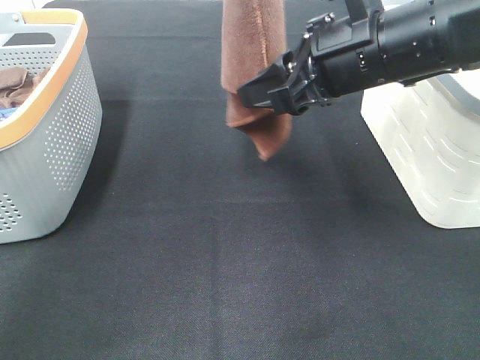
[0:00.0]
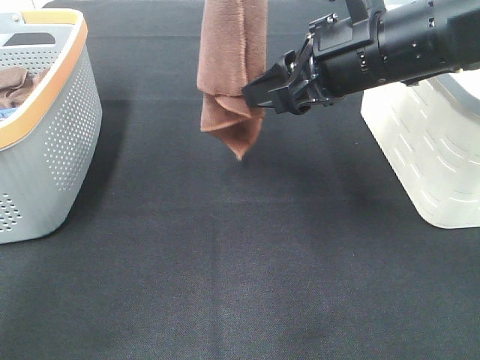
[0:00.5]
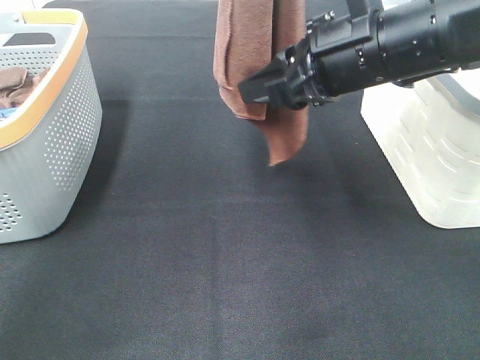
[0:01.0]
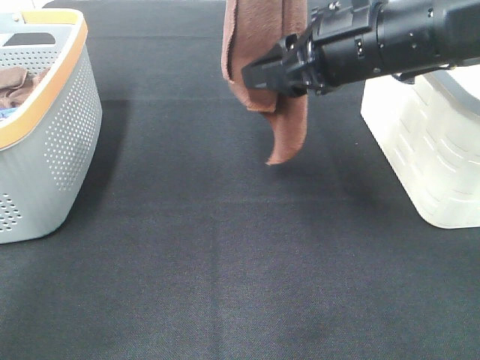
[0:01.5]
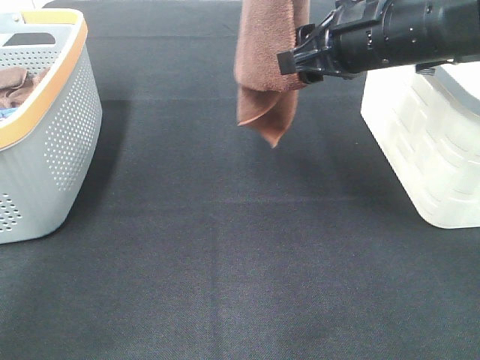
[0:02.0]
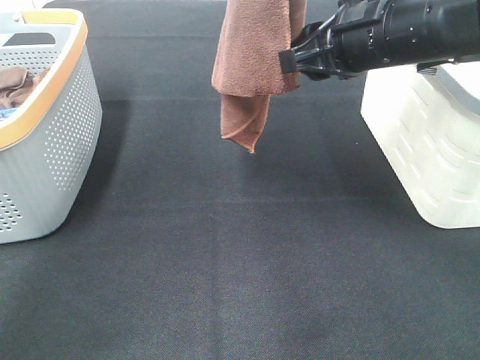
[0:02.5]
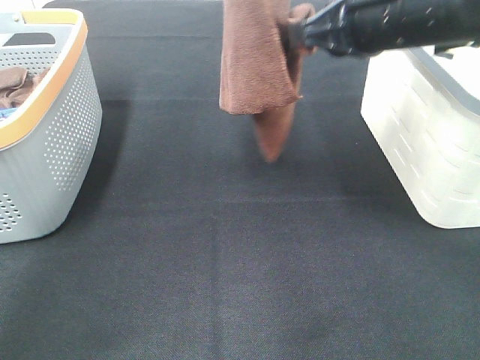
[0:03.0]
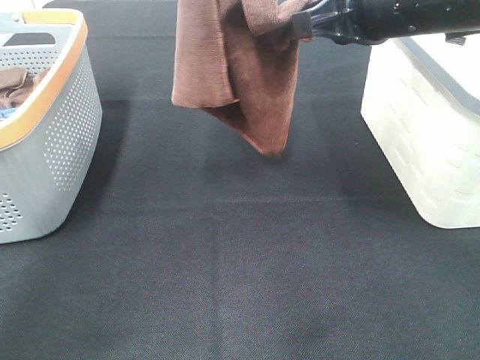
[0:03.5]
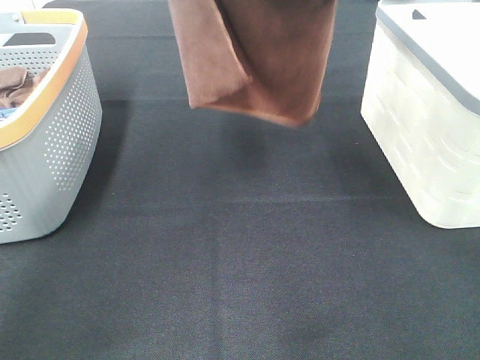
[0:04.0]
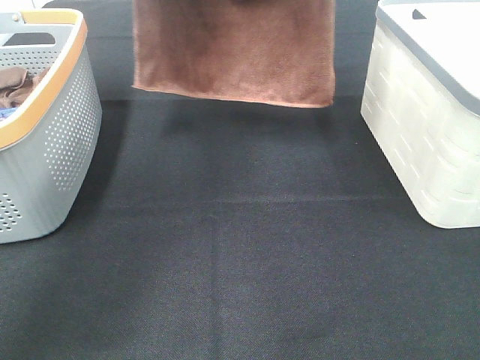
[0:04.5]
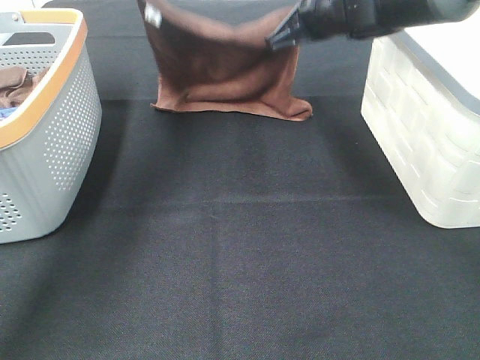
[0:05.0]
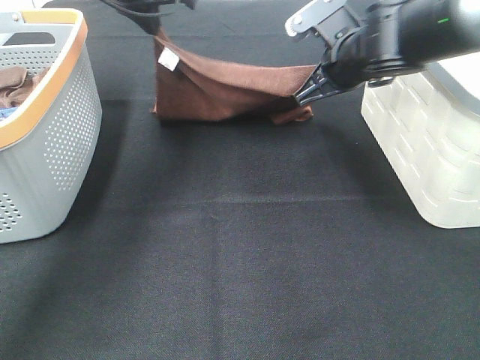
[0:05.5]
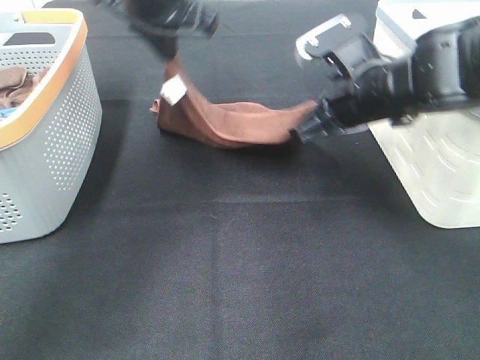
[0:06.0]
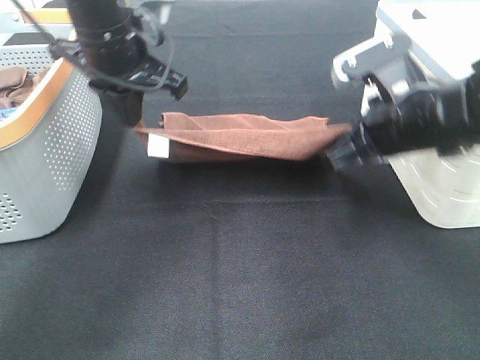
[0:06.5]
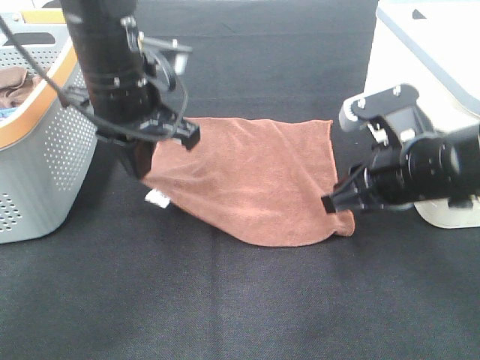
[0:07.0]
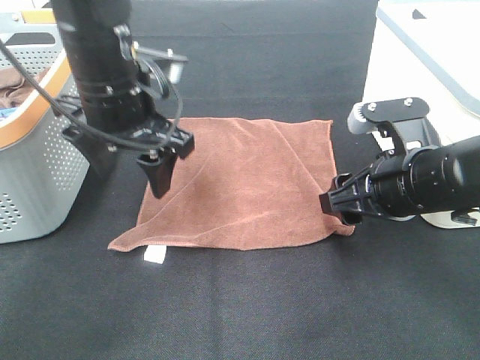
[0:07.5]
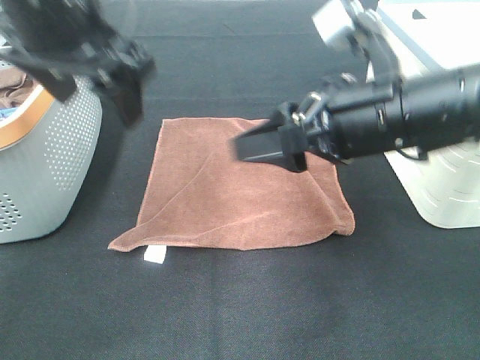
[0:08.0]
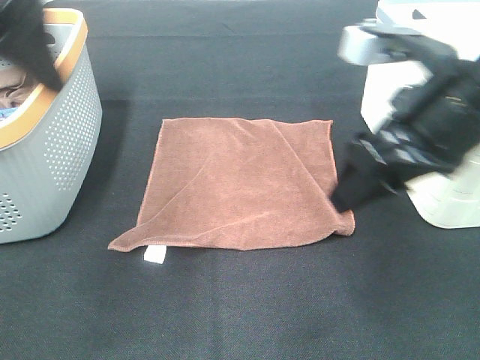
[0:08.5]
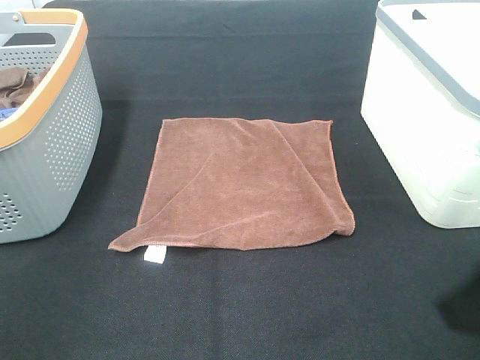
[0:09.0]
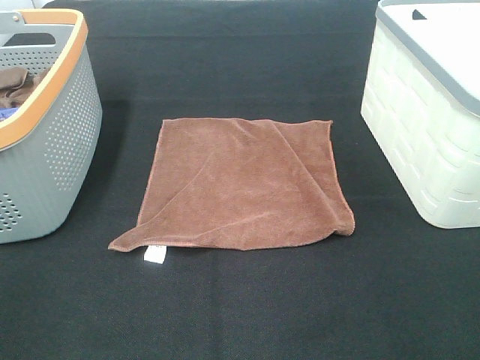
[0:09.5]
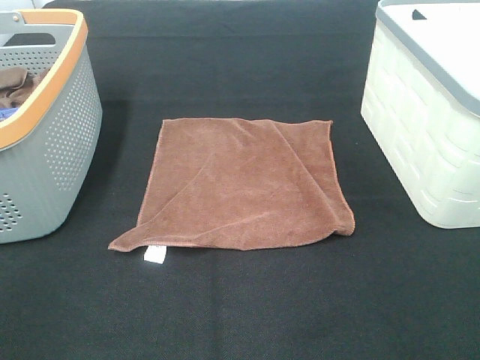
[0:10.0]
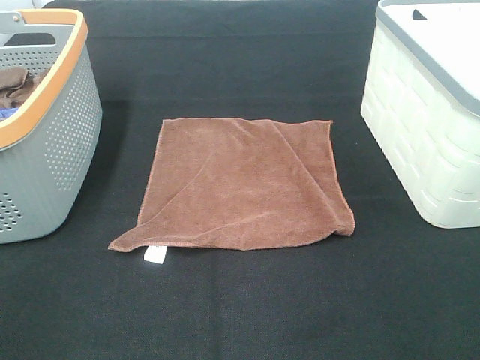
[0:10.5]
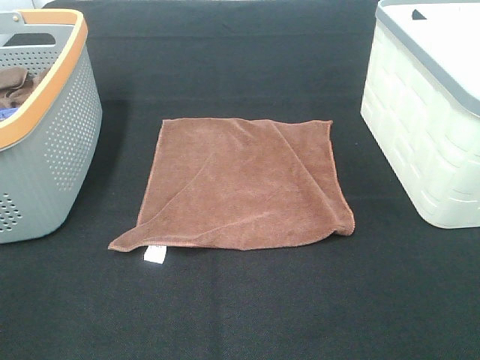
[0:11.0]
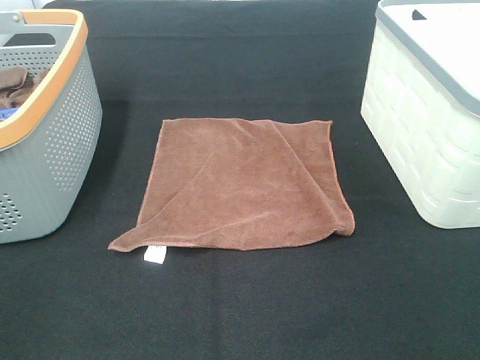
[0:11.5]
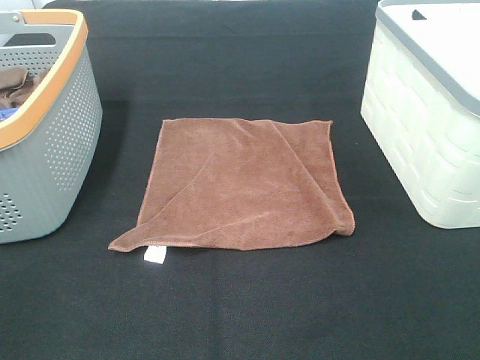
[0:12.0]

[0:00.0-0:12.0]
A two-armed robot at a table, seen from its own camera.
Task of the whole recording: Remove the towel and place it.
Step, 0:00.0 to 0:01.5: Left hand: spread the brown towel flat on the table.
Step, 0:00.0 to 0:01.5: Right hand: spread the brown towel flat on the table.
0:02.0 to 0:04.0: The right gripper travels upward by roughly 10 cm, and closes, while the left gripper heads to the left, covering roughly 5 cm.
0:04.0 to 0:06.0: Both grippers travel together downward, approximately 20 cm.
0:06.0 to 0:08.0: The right gripper travels backward by some 10 cm, and opens its fingers. The left gripper goes about 15 cm backward, and opens.
0:08.0 to 0:10.0: The right gripper heads backward and to the right, covering about 25 cm. Meanwhile the left gripper travels backward and to the left by approximately 30 cm.

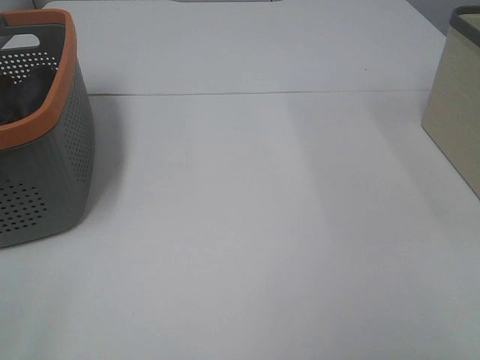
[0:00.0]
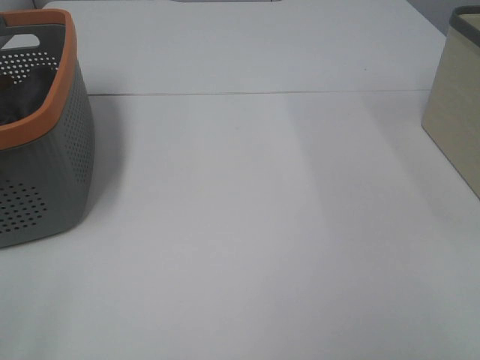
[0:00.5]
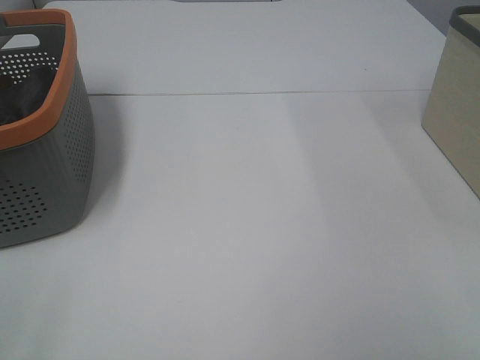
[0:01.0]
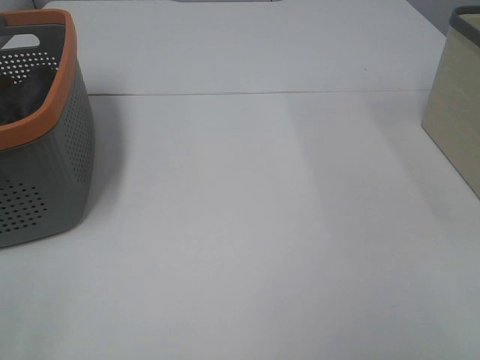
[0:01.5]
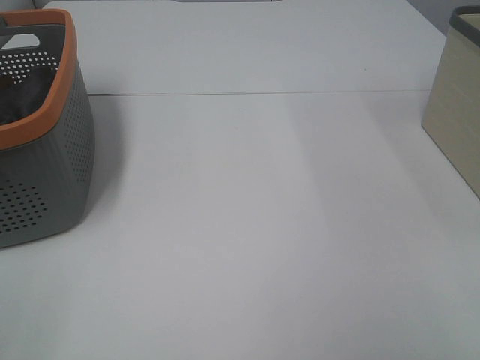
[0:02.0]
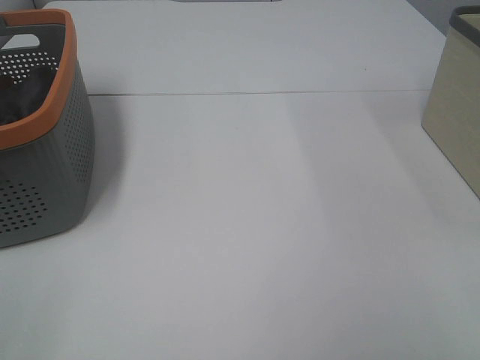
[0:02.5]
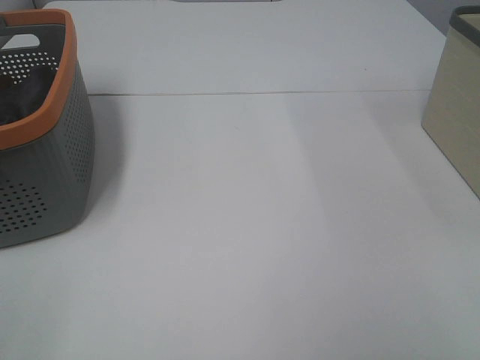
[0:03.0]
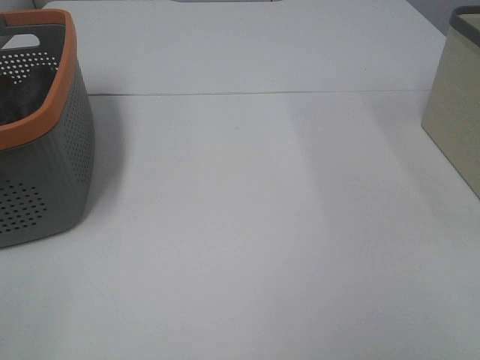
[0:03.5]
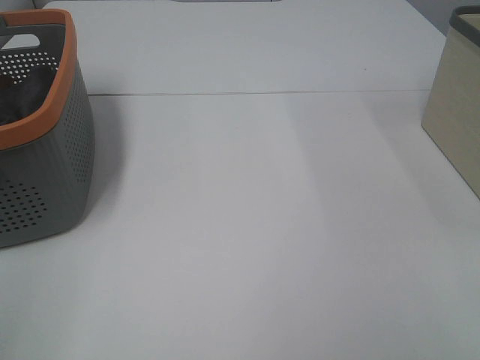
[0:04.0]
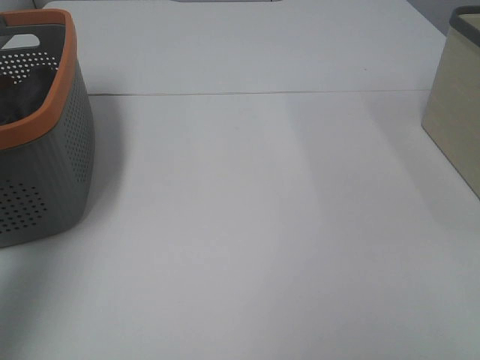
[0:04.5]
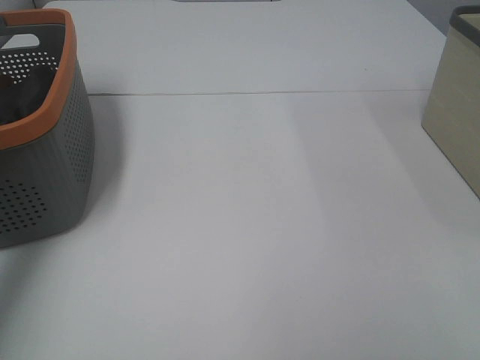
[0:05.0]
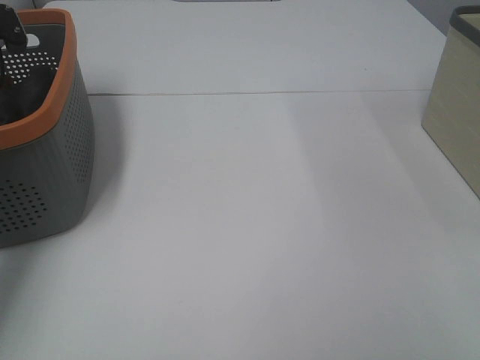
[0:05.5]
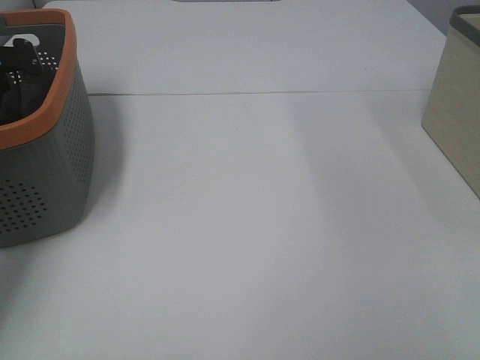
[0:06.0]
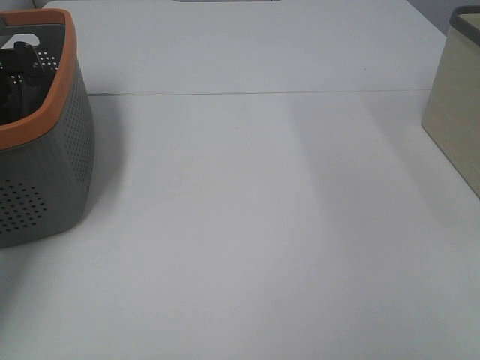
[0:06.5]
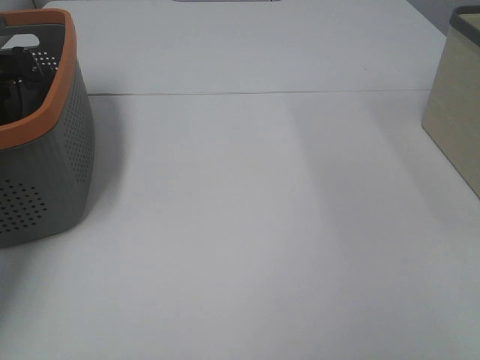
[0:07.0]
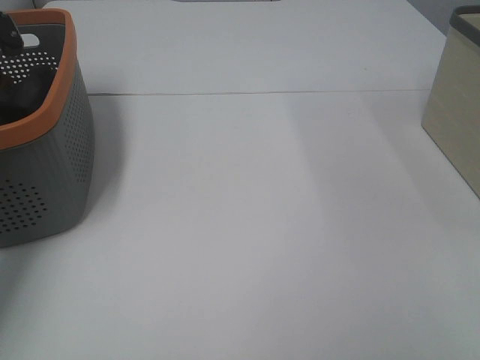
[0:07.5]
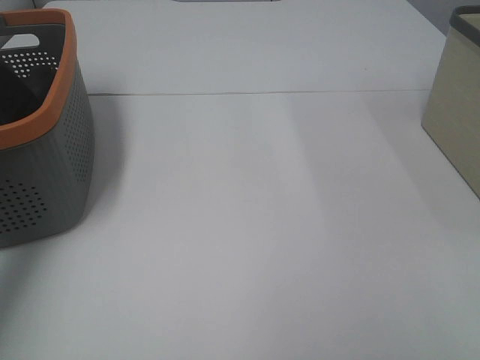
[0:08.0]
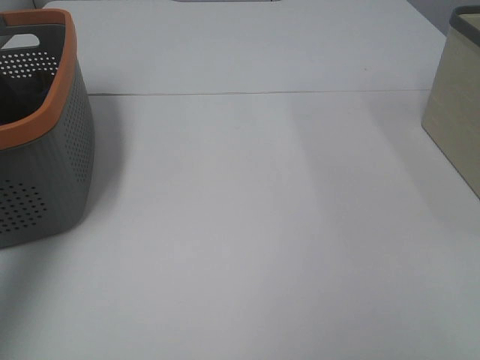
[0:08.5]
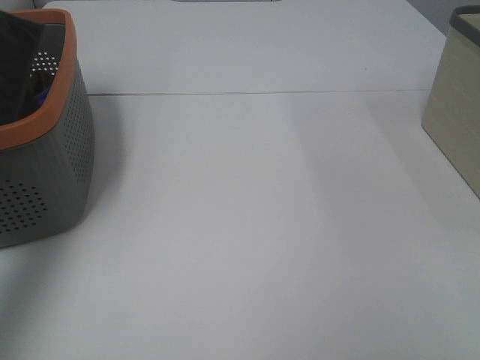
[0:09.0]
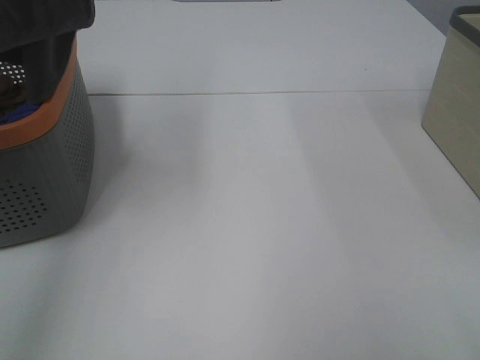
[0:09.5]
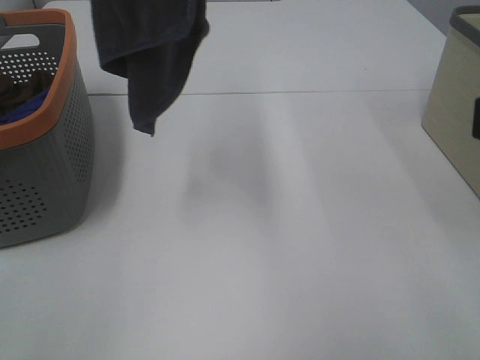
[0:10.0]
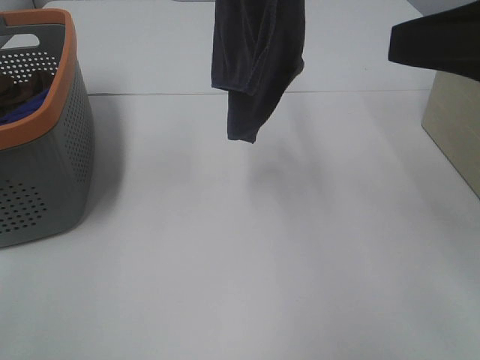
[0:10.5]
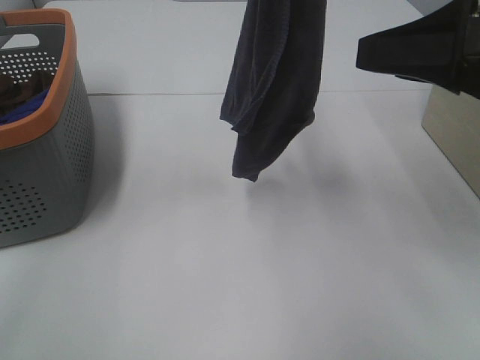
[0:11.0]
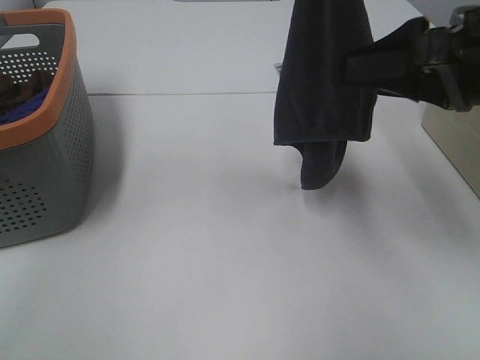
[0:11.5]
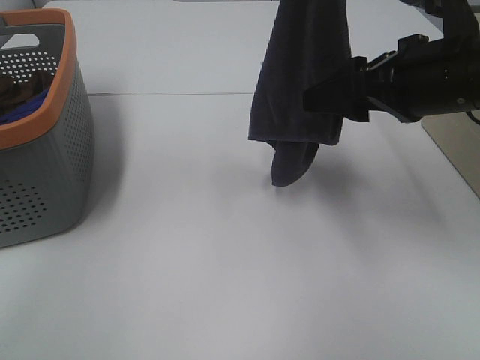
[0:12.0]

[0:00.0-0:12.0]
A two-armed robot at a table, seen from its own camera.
Task of the whole recording: Remove the towel and place it.
0:00.0 to 0:02.0: Both grippers stay put.
0:04.0 to 0:06.0: The left gripper travels forward by about 50 cm.
0:08.0 to 0:10.0: The left gripper is displaced to the right, upward and backward by some 30 cm, while the right gripper shifts about 10 cm forward and upward.
0:10.0 to 0:12.0: The left gripper shifts some 15 cm to the right and downward. The right gripper heads forward and downward, covering about 20 cm.

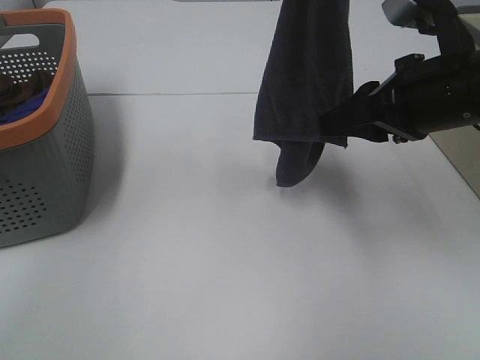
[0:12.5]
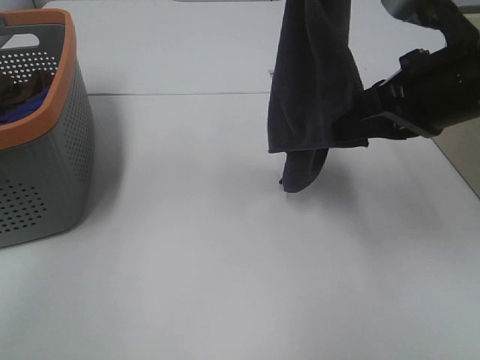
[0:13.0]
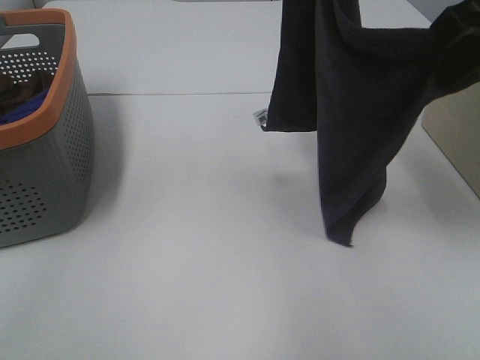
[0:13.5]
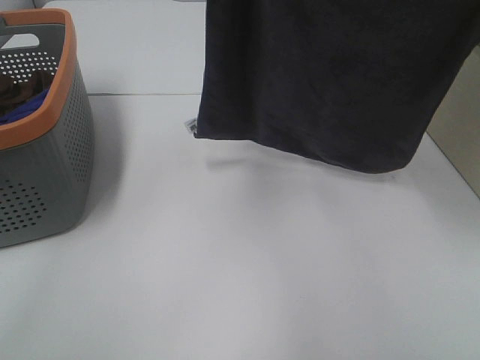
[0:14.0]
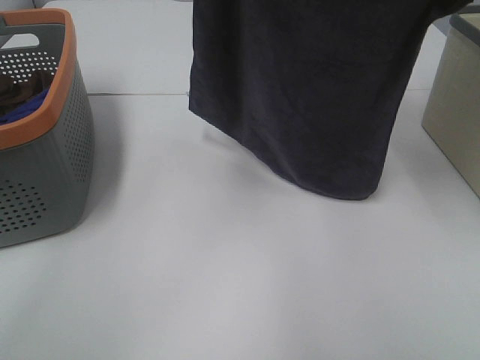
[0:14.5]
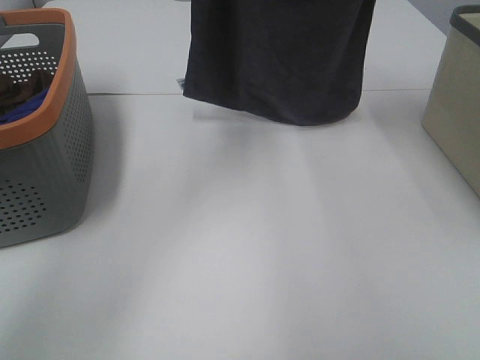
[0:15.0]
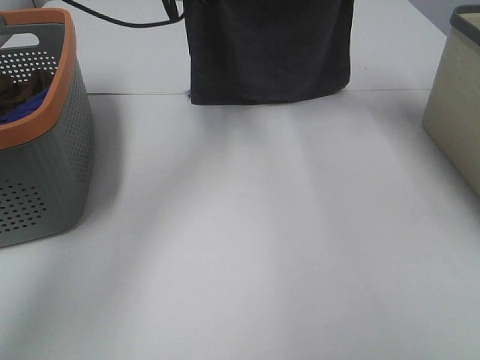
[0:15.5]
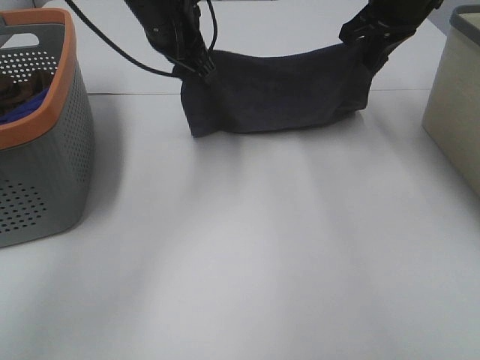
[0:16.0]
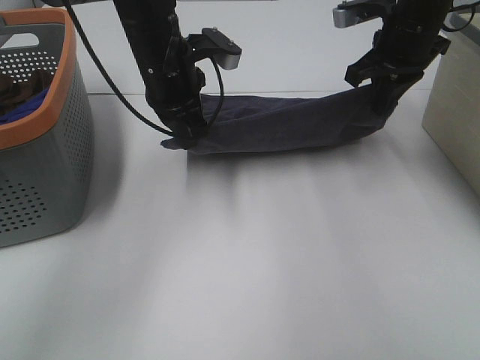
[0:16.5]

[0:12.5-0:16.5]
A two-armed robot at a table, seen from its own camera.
Task of the whole recording: Remove the towel and place it.
Step, 0:12.5 to 0:14.5: Right hand: spread the grey towel flat on the table.
Step, 0:12.5 to 0:15.0: Left hand: spread the grey towel flat on the table.
0:12.5 to 0:14.5: The right gripper travels upward and forward by roughly 15 cm. Meanwhile the left gripper goes about 10 cm forward and downward.
0:14.5 to 0:16.5: The left gripper travels downward by roughly 20 cm; the right gripper is displaced downward and forward by some 15 cm.
